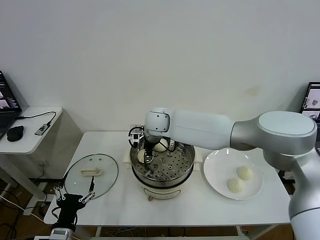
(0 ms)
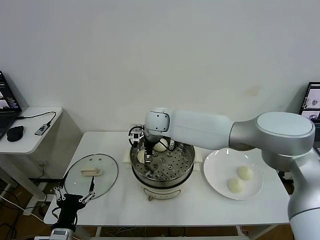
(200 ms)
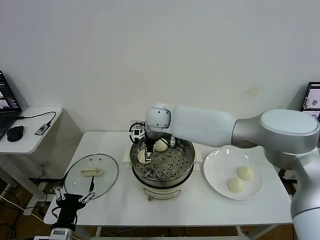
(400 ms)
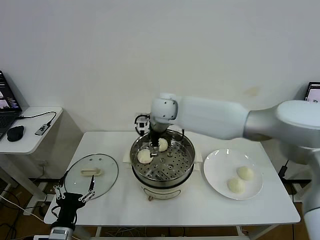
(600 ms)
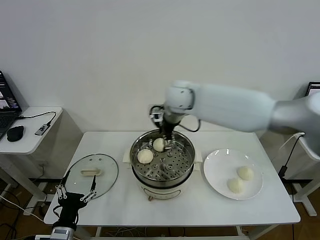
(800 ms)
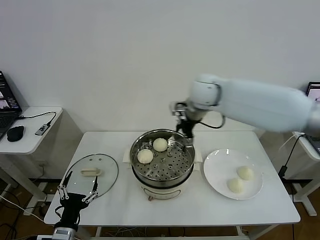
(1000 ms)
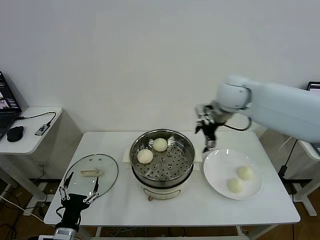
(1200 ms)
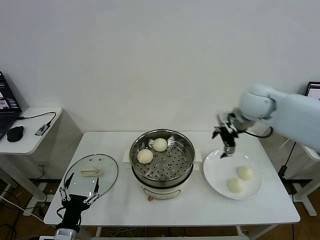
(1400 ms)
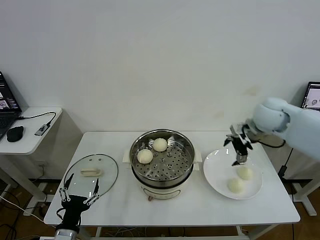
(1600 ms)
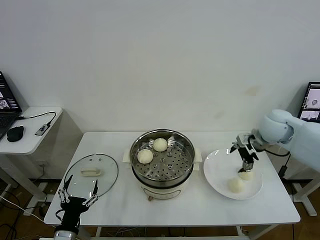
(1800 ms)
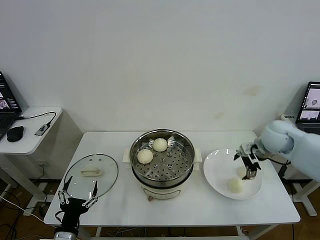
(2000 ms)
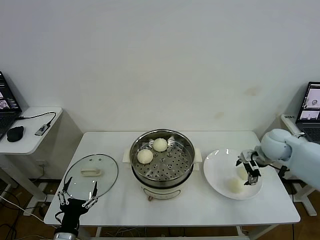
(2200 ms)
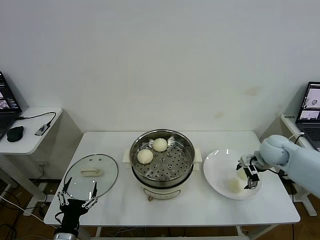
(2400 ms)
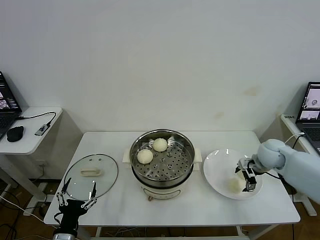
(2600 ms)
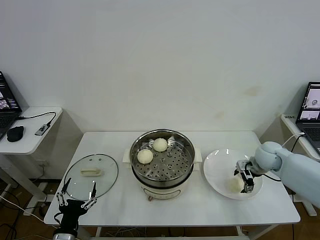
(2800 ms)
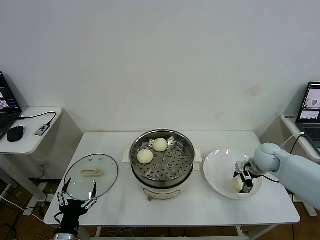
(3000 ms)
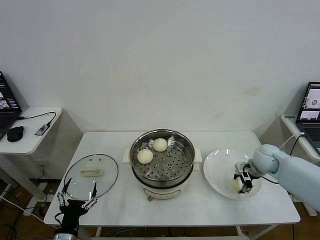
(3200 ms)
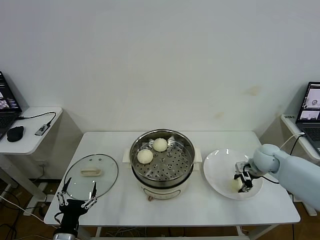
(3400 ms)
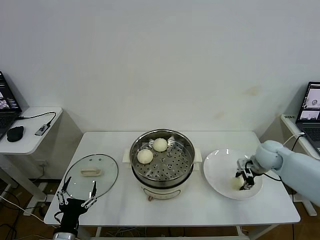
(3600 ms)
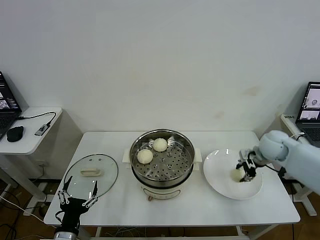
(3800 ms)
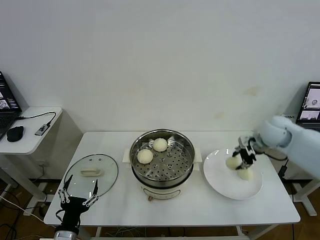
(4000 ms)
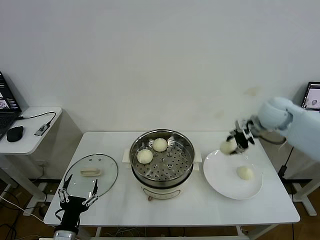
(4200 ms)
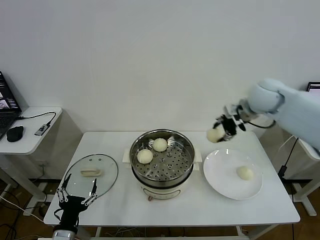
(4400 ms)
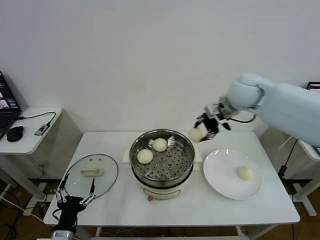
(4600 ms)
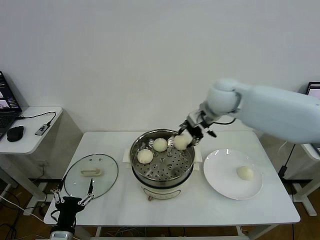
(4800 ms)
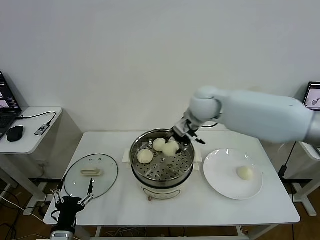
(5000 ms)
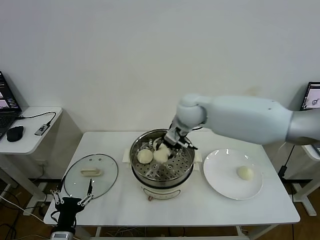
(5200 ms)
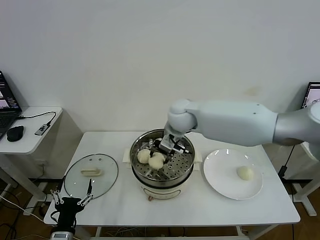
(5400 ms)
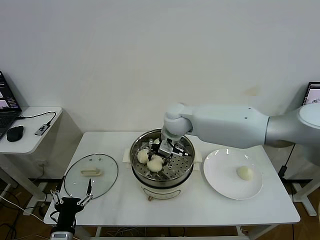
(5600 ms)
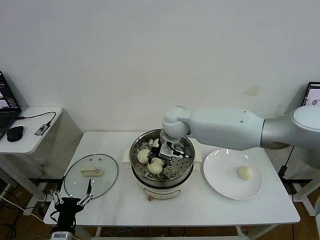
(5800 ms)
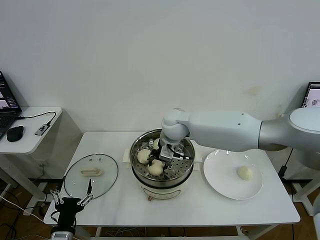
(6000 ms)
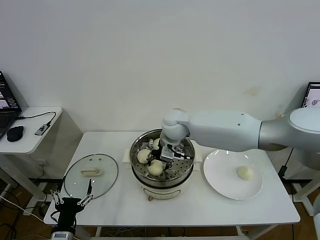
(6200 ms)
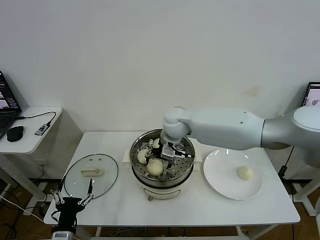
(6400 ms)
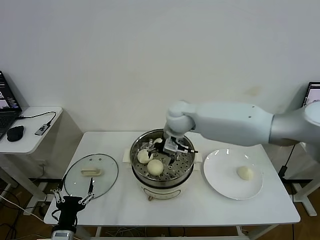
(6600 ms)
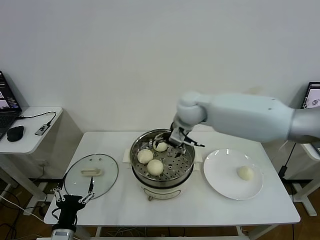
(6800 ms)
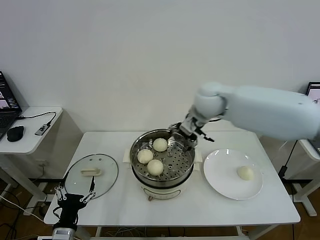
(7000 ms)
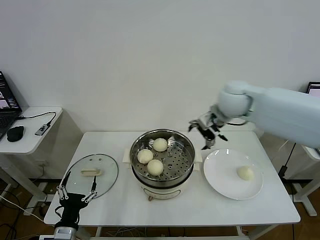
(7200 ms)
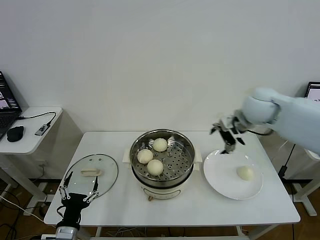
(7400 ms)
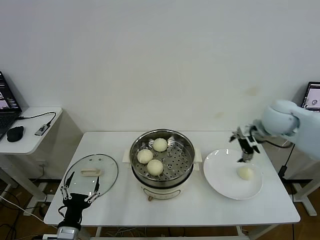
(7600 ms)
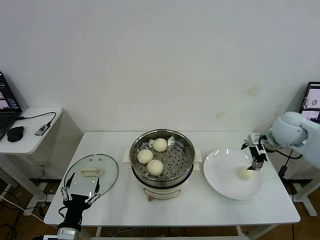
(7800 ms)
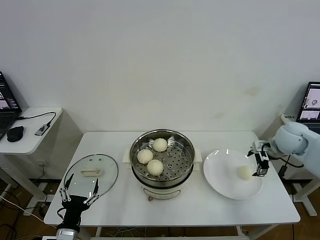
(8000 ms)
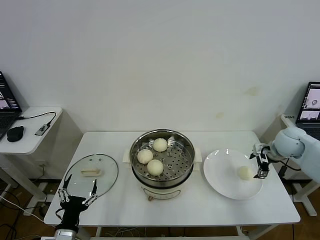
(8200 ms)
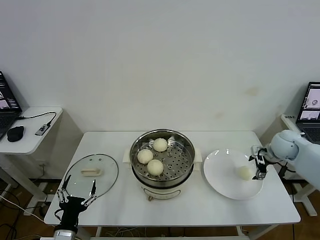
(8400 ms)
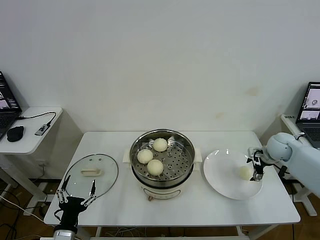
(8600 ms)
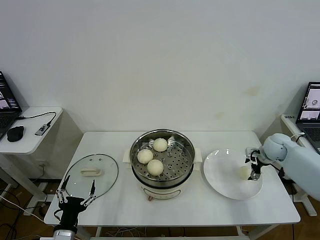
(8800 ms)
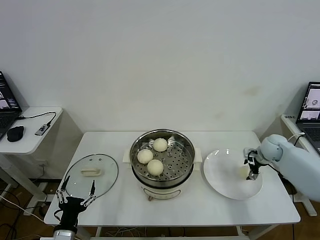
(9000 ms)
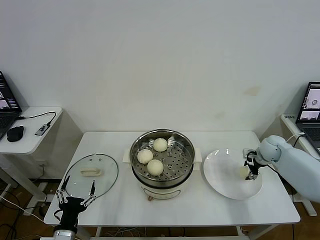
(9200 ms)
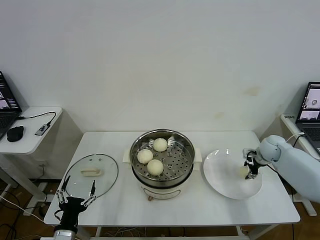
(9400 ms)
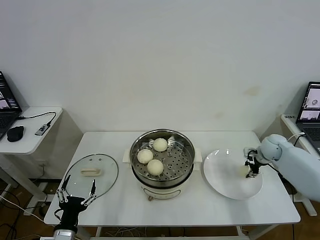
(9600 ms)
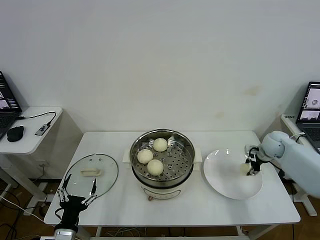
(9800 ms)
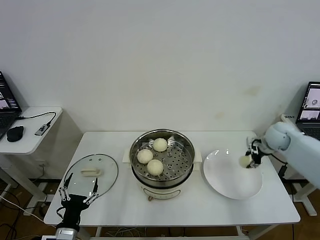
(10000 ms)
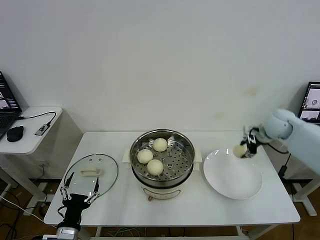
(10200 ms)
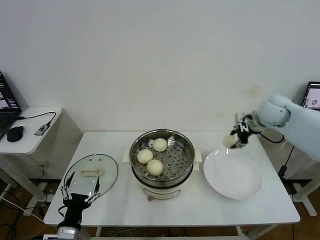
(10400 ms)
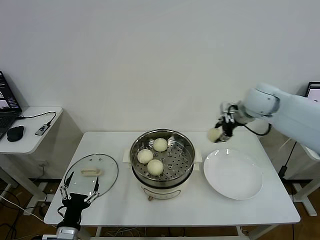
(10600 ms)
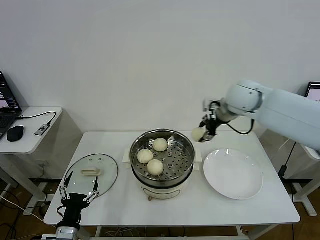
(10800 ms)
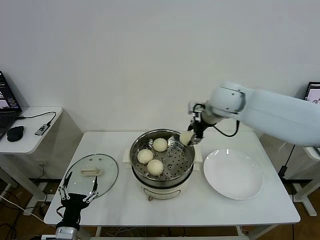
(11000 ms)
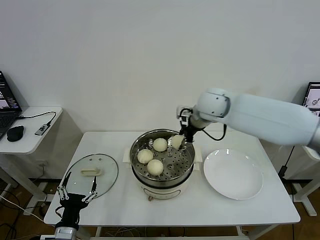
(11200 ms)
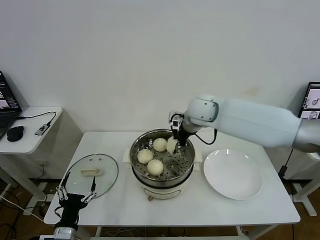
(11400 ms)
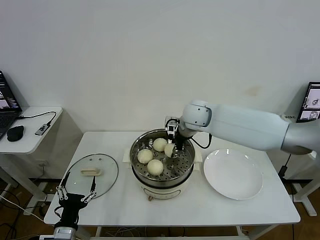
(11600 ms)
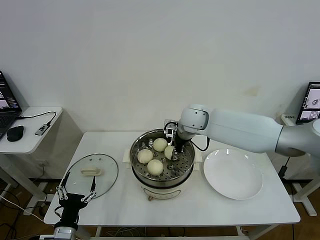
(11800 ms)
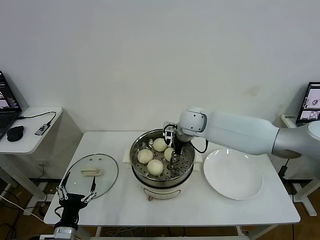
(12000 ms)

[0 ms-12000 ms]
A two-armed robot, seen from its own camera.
Task of the whole recording: take steamed baozi put them in steamer then cover it.
Step, 400 ms to 3400 ms: Grasp the baozi in the plate with right gripper.
Step, 3600 ms to 6400 ms: Place the baozi on the steamer with right gripper.
Step, 6800 ms to 9400 ms: Grasp the baozi in the plate with right gripper.
0 ms to 1600 ms: The right gripper goes approximately 35 cm to the right, and opens up.
1600 ms to 3000 ms: The right gripper moves downward, approximately 15 cm, and closes its fingers.
3000 ms to 4400 ms: The right gripper is displaced upward and to the left by about 25 cm, and closes up.
4400 ms to 6000 ms: The right gripper moves to the left and downward, roughly 25 cm.
6000 ms to 7600 ms: The right gripper is displaced to the right by roughly 30 cm, and opens.
7600 ms to 9000 ms: The right gripper shifts some 20 cm downward and to the right.
9000 ms to 10400 ms: The right gripper goes about 20 cm upward and to the left, and closes.
10400 ms to 12000 ms: The right gripper is displaced to the left by roughly 25 cm.

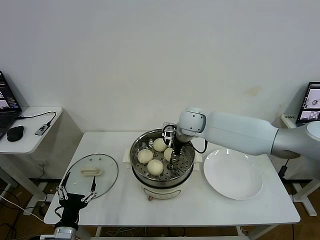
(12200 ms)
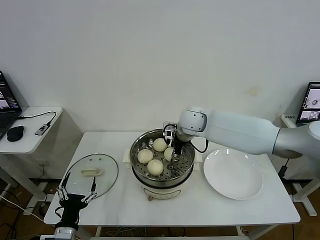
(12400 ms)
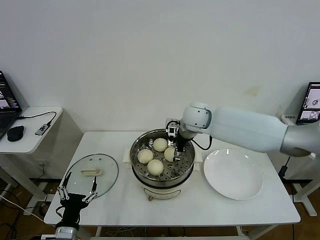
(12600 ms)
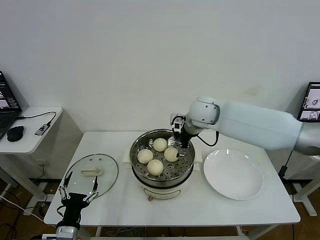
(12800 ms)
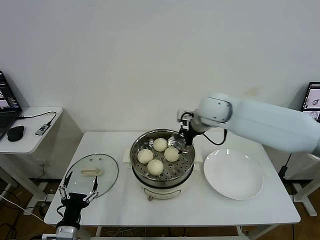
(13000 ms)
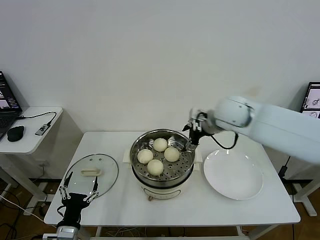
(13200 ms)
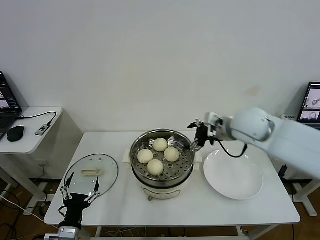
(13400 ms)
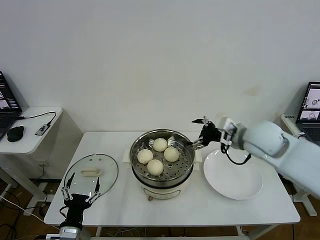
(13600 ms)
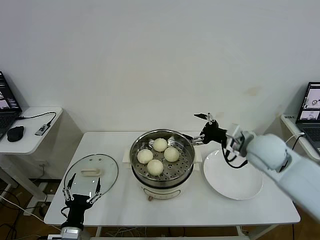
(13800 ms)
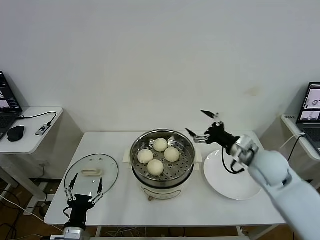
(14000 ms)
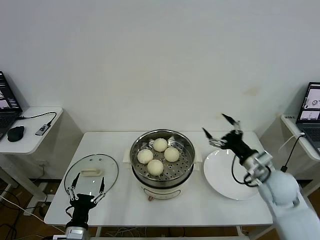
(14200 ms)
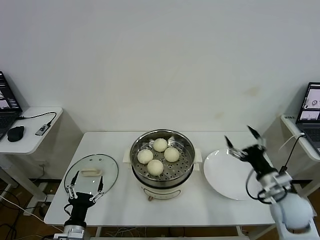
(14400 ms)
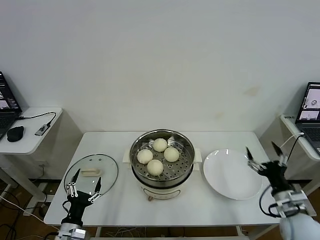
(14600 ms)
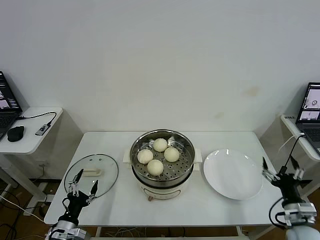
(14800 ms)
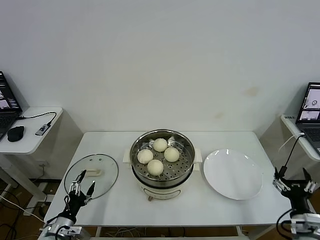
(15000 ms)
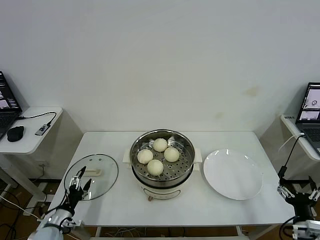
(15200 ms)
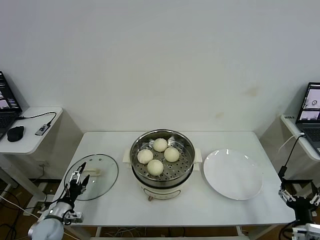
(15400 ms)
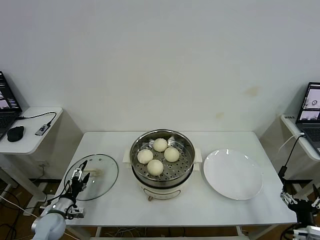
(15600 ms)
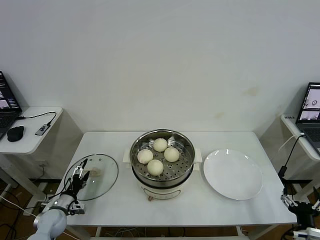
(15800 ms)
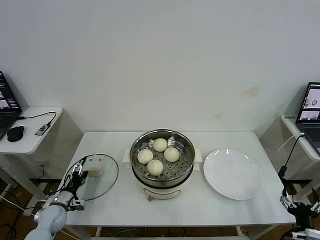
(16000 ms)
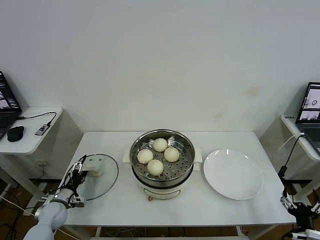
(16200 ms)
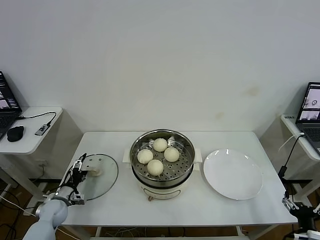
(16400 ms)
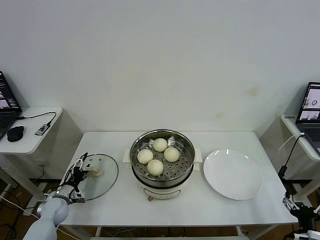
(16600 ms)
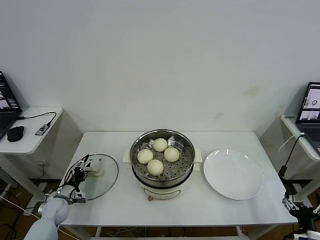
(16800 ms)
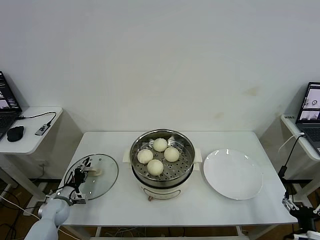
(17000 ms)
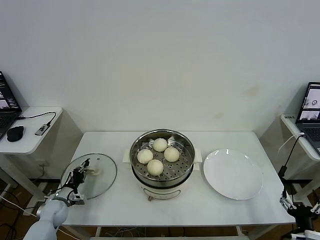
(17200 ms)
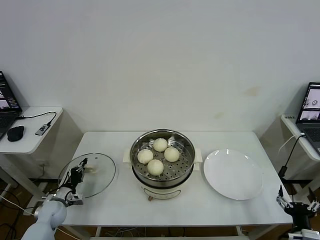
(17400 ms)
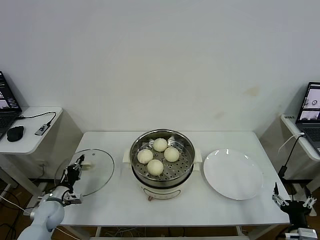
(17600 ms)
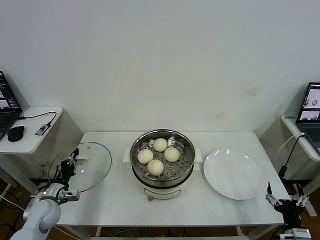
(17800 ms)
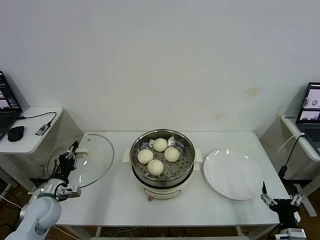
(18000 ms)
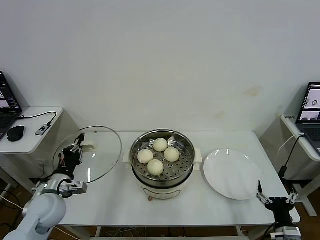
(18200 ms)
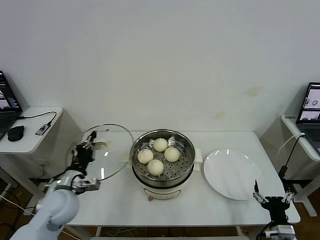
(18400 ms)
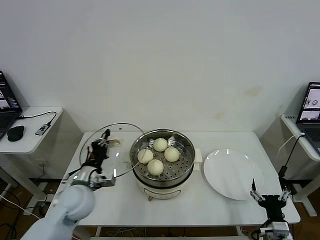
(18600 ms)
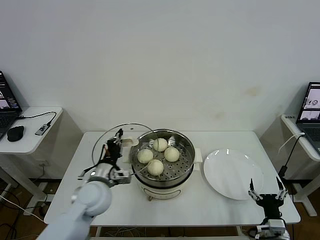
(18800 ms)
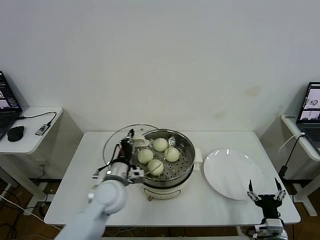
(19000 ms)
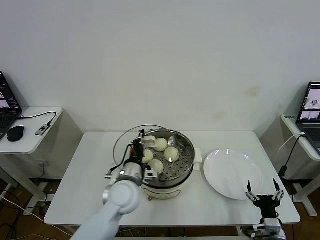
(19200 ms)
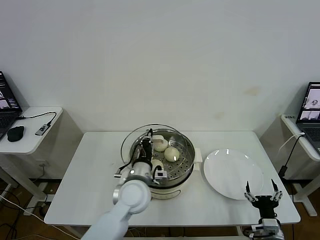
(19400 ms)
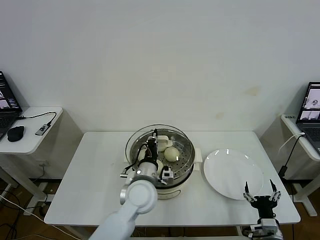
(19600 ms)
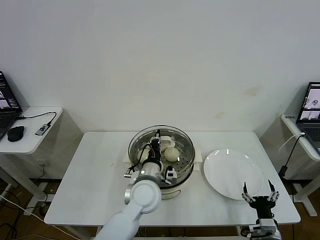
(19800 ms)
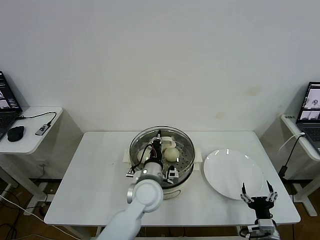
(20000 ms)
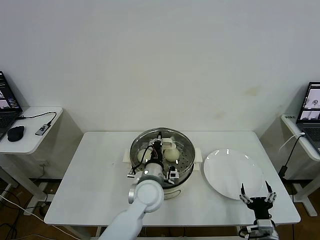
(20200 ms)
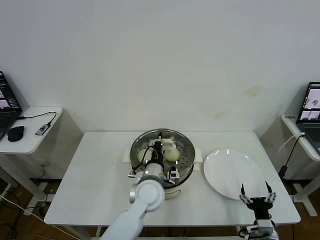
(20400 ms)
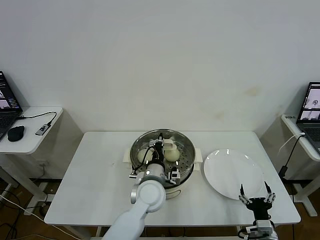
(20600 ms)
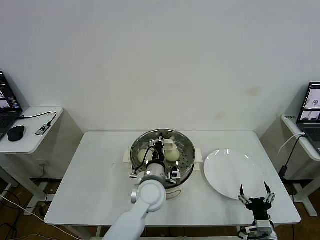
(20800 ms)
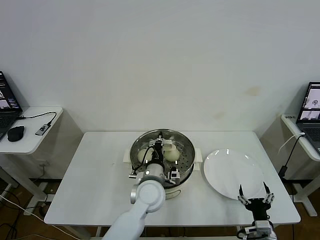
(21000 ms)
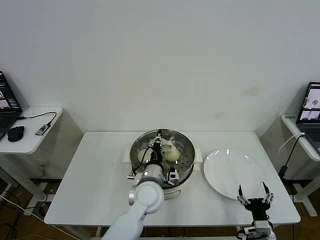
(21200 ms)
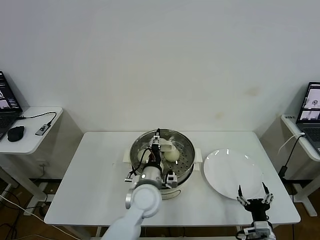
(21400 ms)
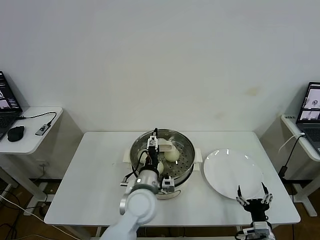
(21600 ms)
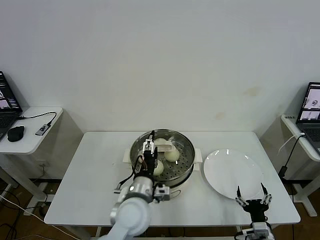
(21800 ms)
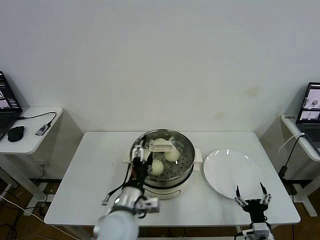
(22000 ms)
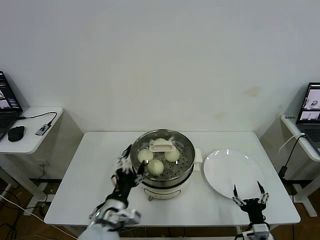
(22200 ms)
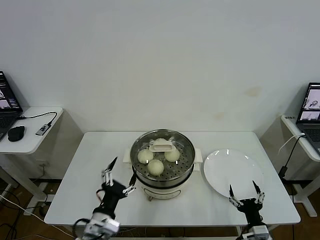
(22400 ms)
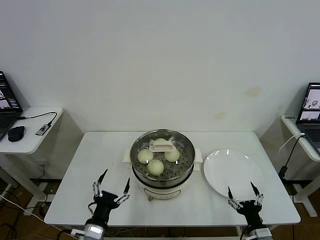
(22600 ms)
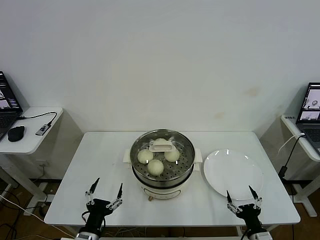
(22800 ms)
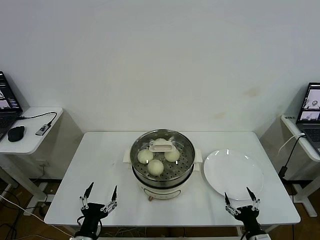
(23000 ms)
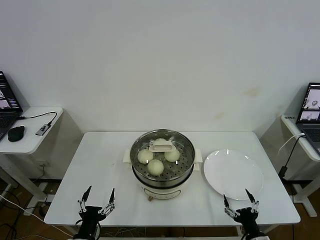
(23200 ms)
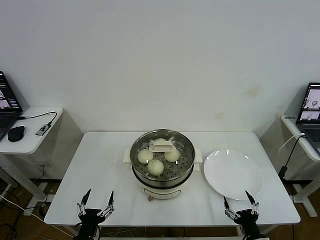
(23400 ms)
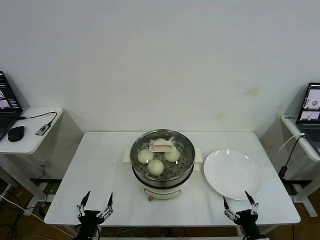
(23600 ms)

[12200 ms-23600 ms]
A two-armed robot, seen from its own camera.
Task of the whole recording: take steamed baozi put them in steamer then cover it.
Step, 12800 ms to 17400 ms: Grasp the pot lid with left gripper.
Step, 17600 ms to 21600 ms: Place the pot lid on the steamer with left gripper.
12200 ms to 13600 ms: The right gripper travels to the right and backward by some 20 cm, and opens.
13600 ms to 15000 ms: The left gripper goes about 5 cm to the left. Meanwhile the right gripper is displaced backward, downward and to the right by roughly 35 cm.
15000 ms to 16400 ms: The right gripper changes place by about 5 cm. The left gripper moves forward and to the left, some 15 cm.
16400 ms to 17800 ms: The left gripper travels upward by about 5 cm, and closes.
17800 ms to 19400 ms: The right gripper shifts approximately 5 cm to the left. Meanwhile the left gripper shifts some 30 cm to the right.
19400 ms to 20800 ms: The left gripper moves to the right, some 5 cm.
20800 ms to 22200 ms: The left gripper travels backward and to the left by some 15 cm, and opens.
22200 ms to 23600 ms: The left gripper shifts approximately 20 cm downward, to the left and backward.
